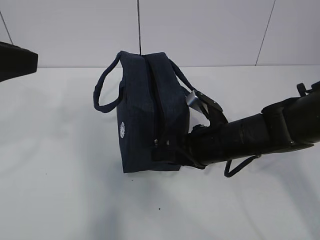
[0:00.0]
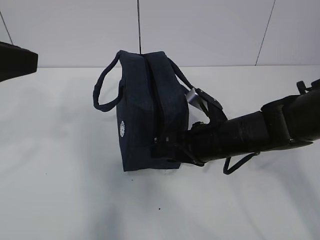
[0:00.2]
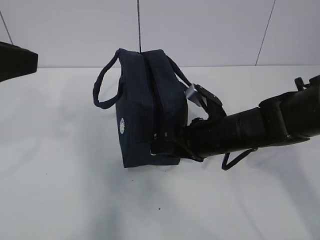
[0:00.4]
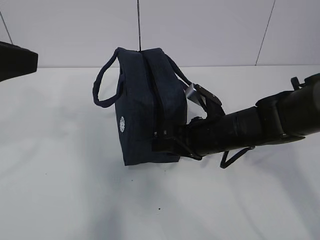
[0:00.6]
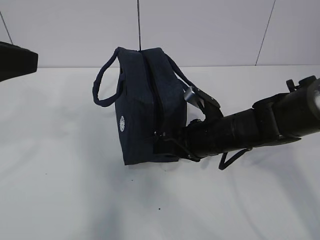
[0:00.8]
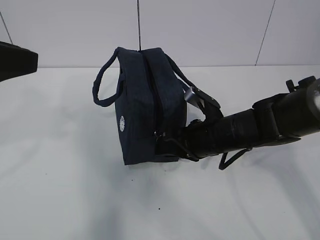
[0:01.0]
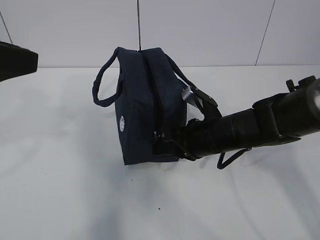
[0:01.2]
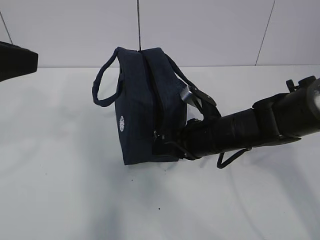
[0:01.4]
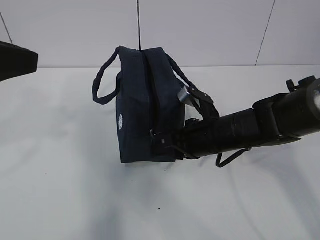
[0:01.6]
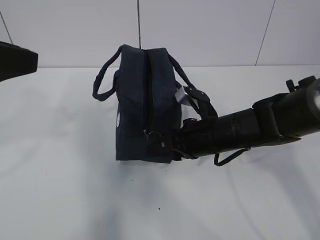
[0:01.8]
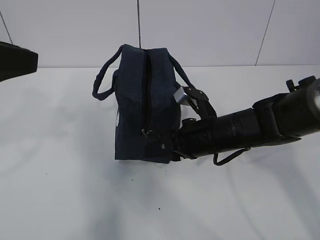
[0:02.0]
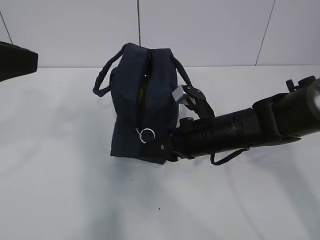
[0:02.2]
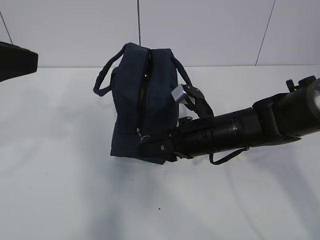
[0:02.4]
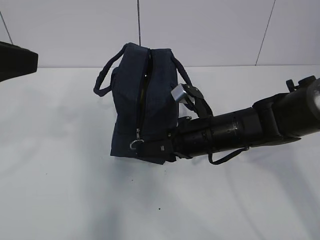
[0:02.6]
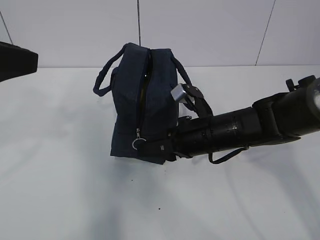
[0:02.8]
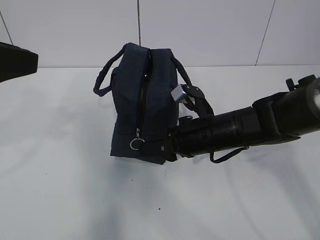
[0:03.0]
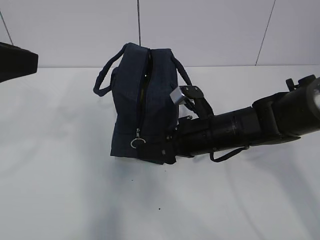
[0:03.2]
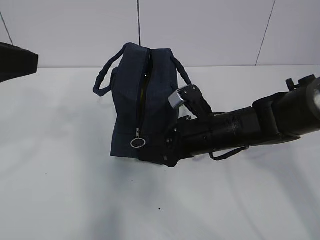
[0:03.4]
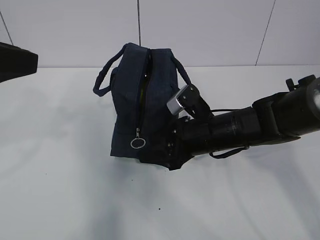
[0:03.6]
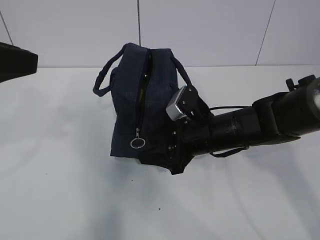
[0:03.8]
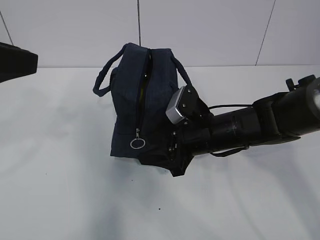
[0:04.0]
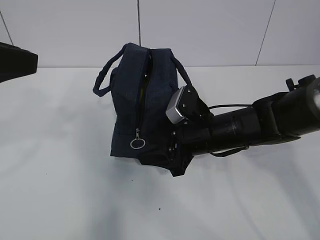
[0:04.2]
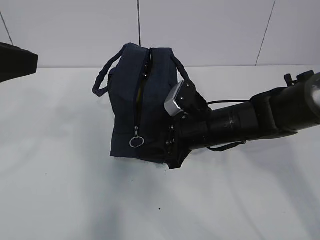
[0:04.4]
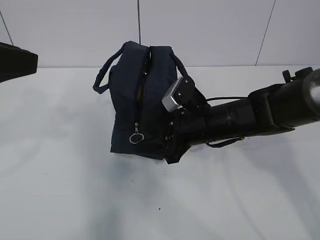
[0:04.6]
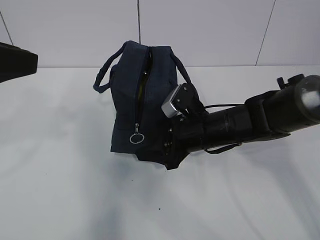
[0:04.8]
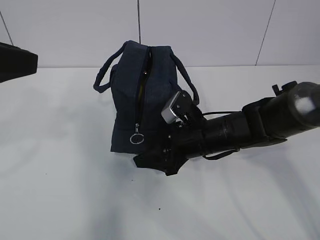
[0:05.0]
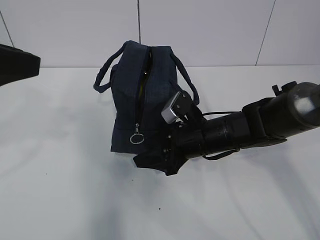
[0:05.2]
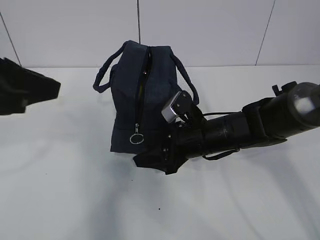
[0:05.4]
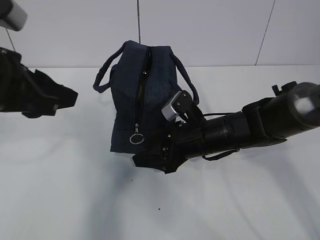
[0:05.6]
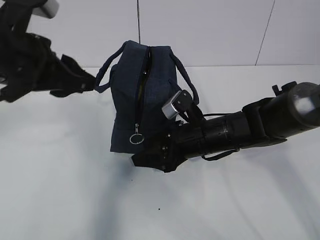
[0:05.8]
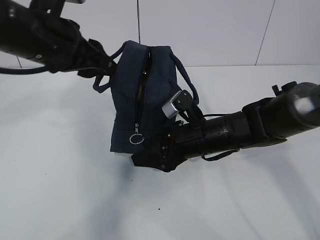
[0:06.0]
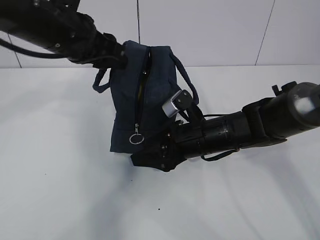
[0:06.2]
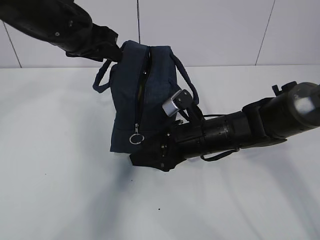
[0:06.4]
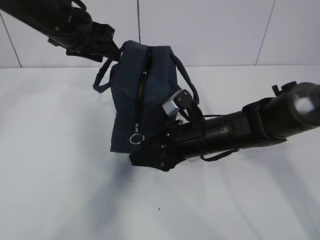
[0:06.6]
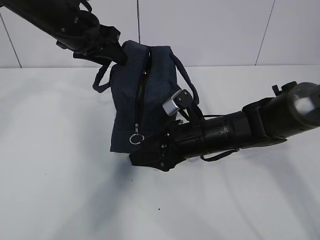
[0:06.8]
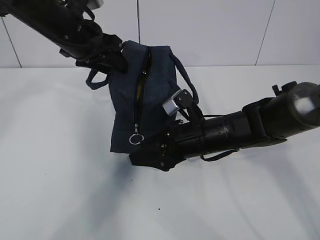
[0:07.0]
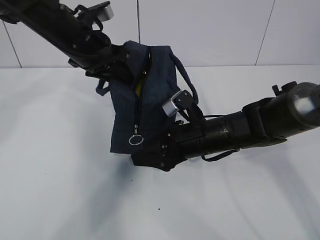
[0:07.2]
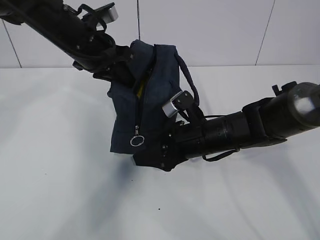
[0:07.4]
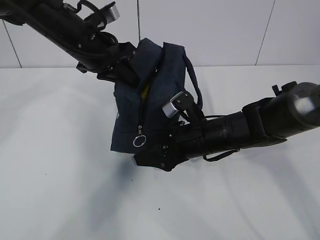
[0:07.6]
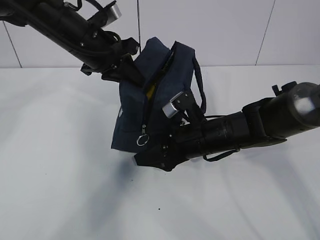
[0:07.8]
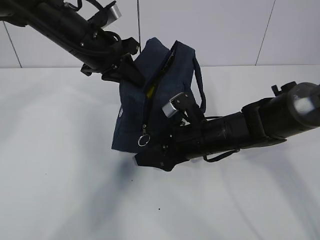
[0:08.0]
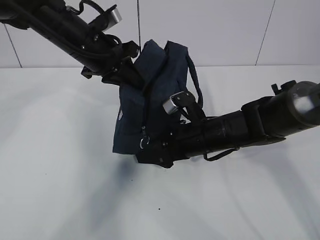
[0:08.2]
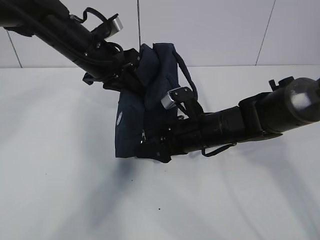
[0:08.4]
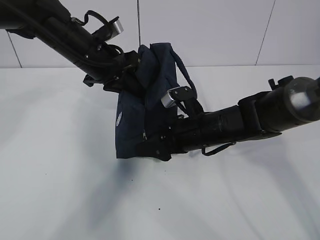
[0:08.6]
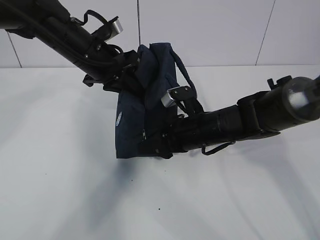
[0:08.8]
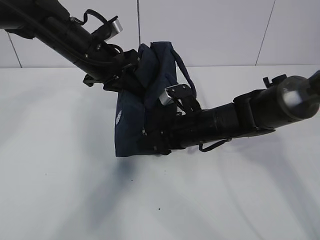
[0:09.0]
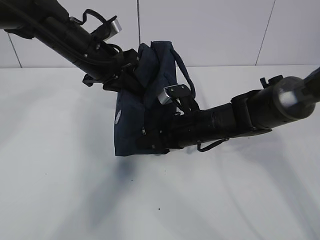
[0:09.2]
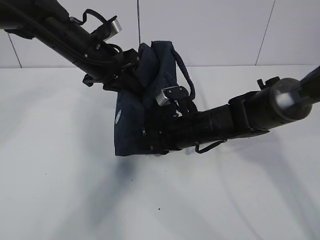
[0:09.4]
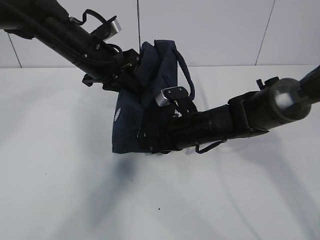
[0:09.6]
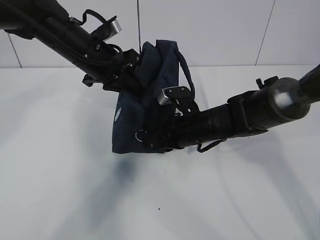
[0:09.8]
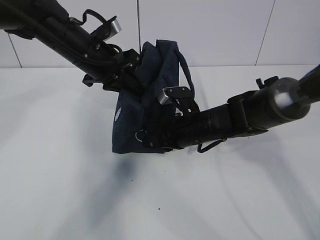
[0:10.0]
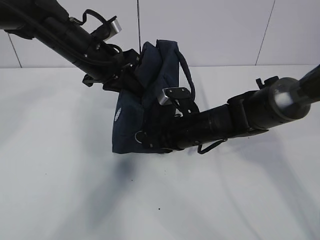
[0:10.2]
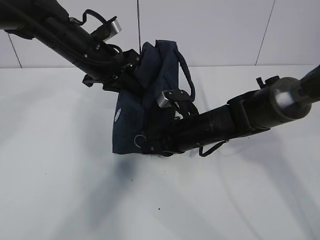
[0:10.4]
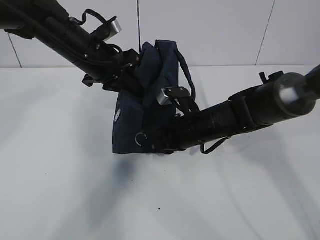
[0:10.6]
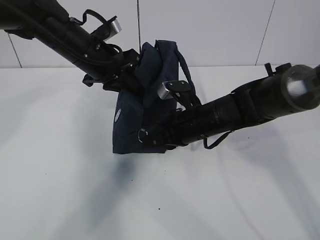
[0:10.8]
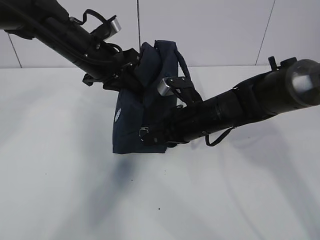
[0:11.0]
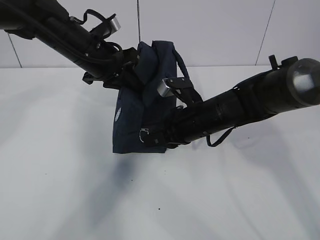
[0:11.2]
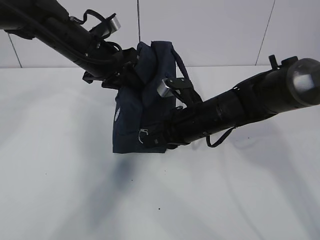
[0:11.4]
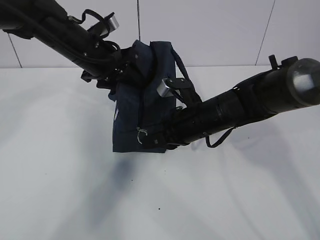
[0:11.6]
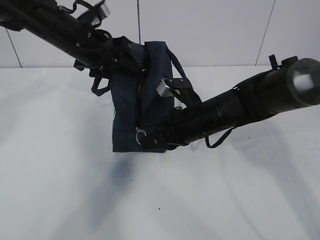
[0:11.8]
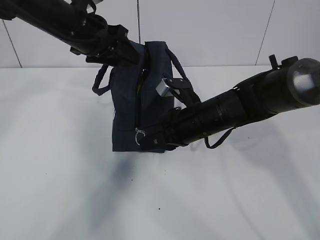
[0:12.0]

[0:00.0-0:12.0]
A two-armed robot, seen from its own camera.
0:00.0 to 0:01.6: The right gripper closes.
0:01.6 to 0:03.0: The grippers stay close to where they were, moving slightly.
0:04.4 to 0:06.0: The left gripper travels forward, to the right and downward by about 15 cm.
0:06.0 to 0:07.6: The left gripper travels forward by roughly 10 cm, and closes up.
0:07.6 to 0:09.0: The grippers make only small movements.
0:09.0 to 0:10.4: The right gripper closes up.
0:10.4 to 0:12.0: The left gripper opens.

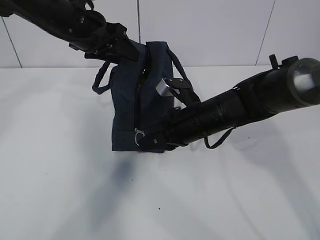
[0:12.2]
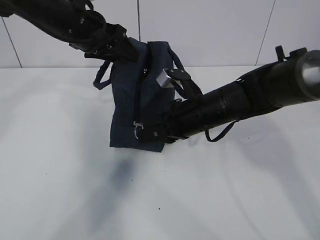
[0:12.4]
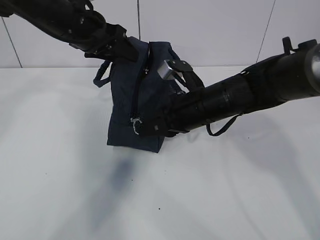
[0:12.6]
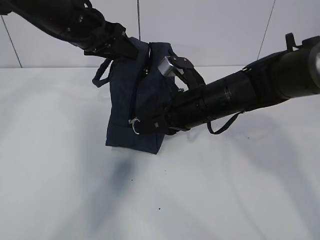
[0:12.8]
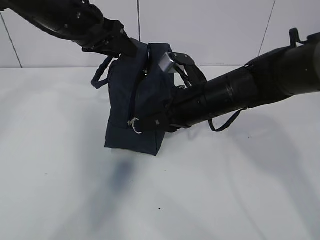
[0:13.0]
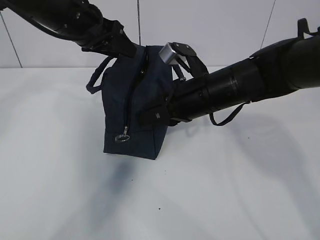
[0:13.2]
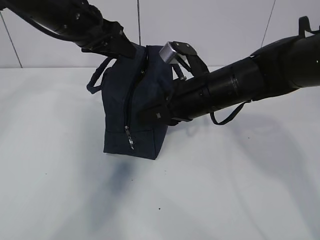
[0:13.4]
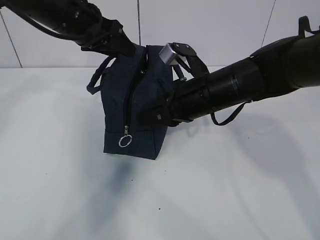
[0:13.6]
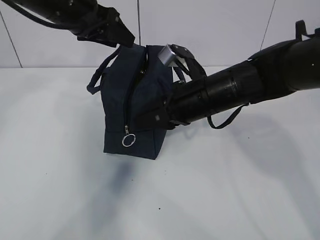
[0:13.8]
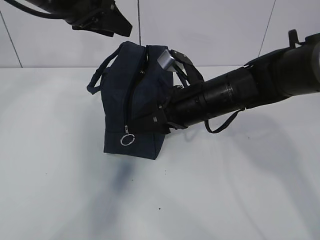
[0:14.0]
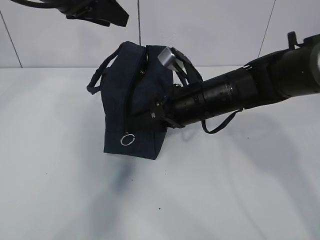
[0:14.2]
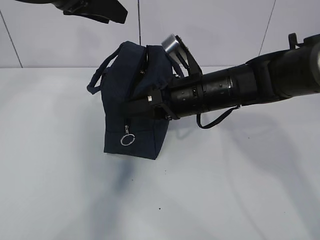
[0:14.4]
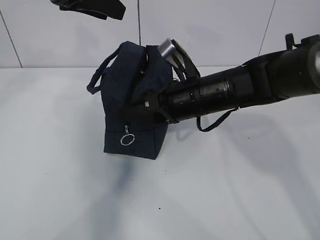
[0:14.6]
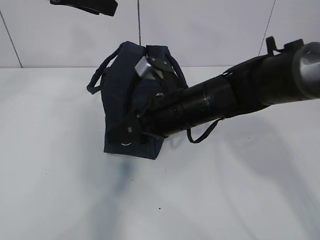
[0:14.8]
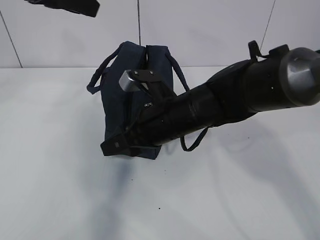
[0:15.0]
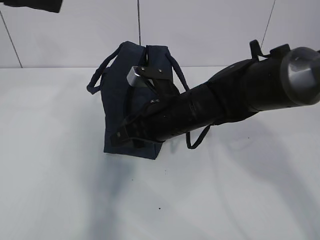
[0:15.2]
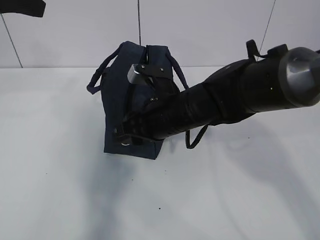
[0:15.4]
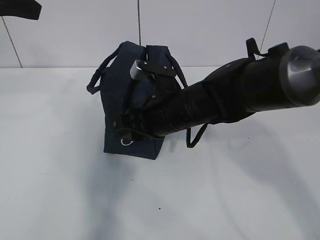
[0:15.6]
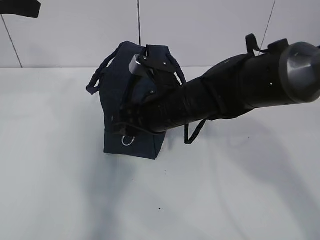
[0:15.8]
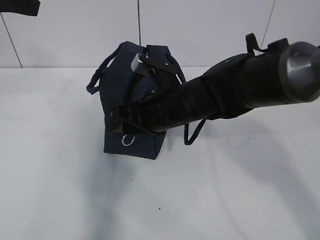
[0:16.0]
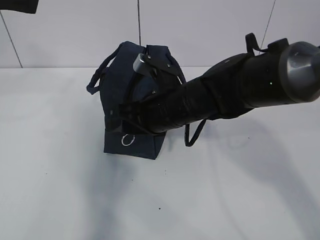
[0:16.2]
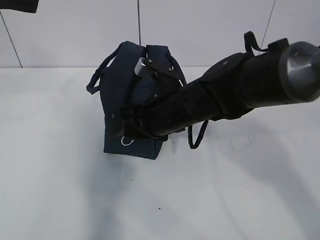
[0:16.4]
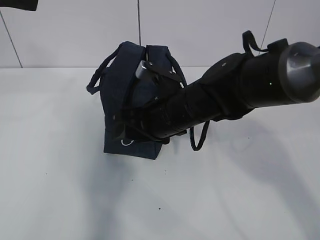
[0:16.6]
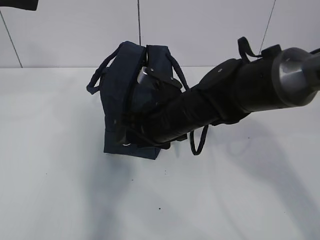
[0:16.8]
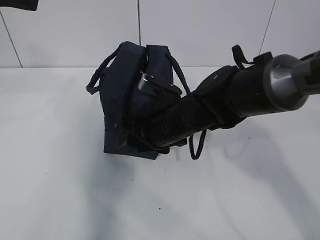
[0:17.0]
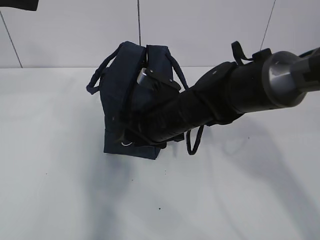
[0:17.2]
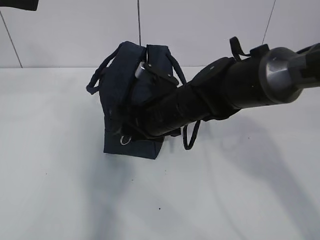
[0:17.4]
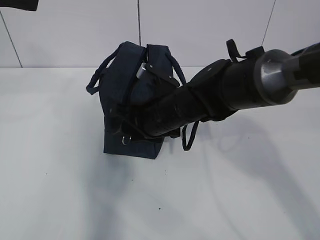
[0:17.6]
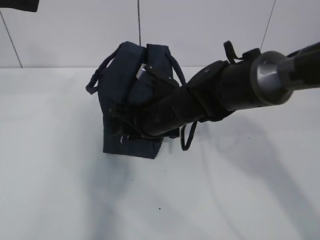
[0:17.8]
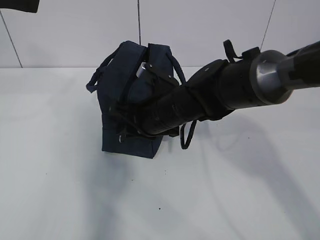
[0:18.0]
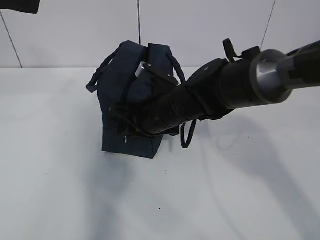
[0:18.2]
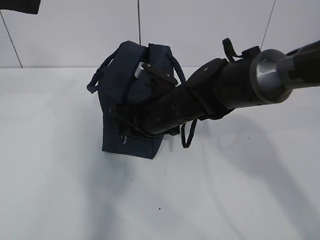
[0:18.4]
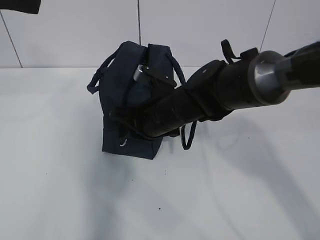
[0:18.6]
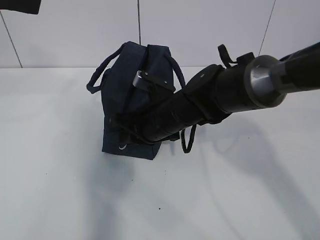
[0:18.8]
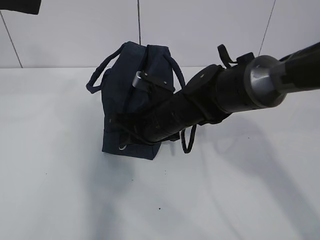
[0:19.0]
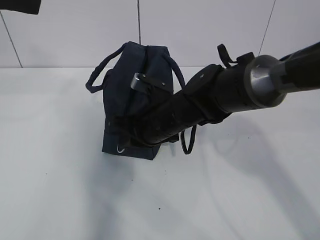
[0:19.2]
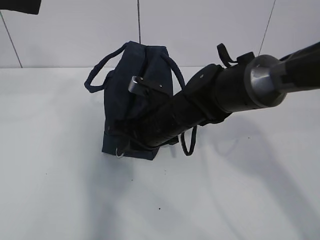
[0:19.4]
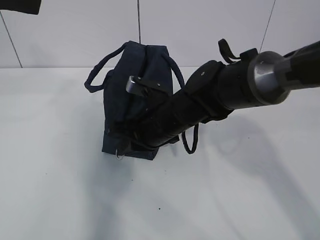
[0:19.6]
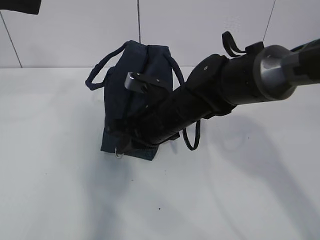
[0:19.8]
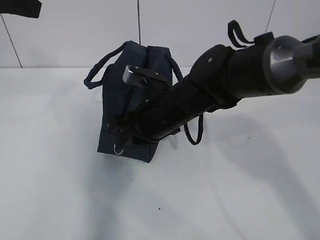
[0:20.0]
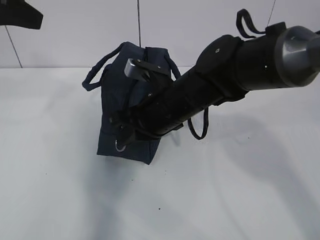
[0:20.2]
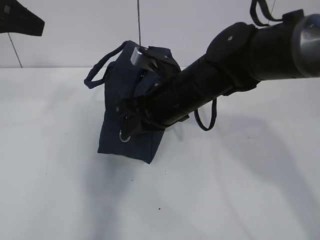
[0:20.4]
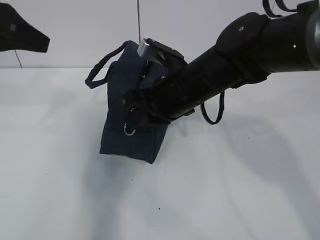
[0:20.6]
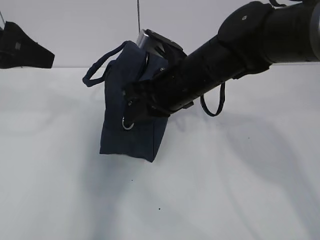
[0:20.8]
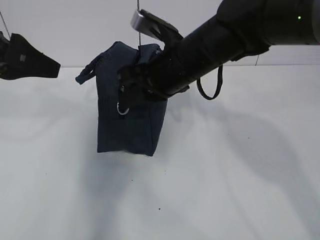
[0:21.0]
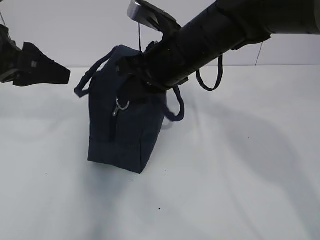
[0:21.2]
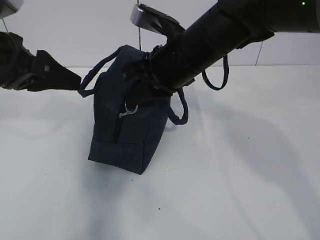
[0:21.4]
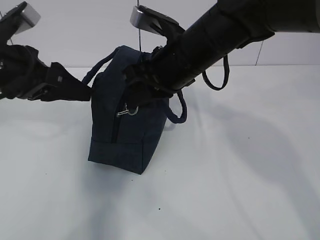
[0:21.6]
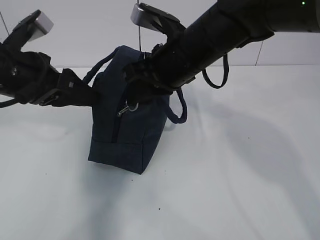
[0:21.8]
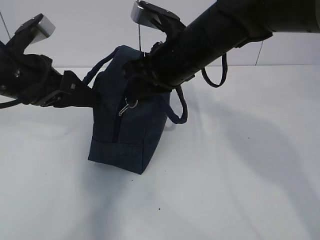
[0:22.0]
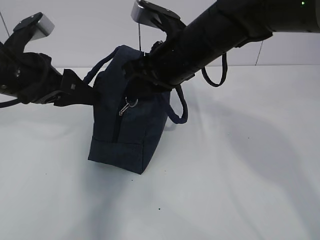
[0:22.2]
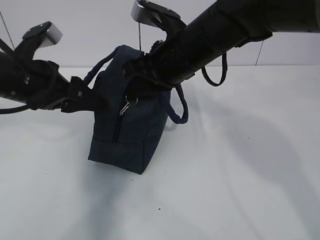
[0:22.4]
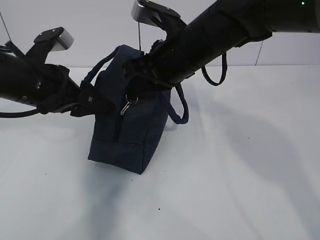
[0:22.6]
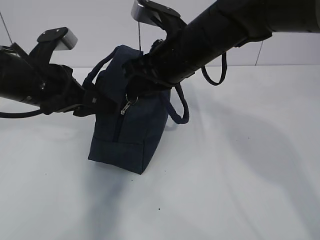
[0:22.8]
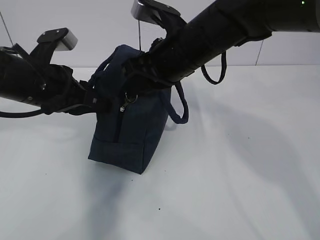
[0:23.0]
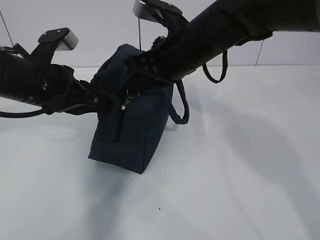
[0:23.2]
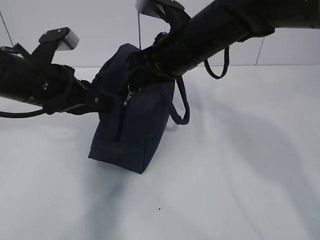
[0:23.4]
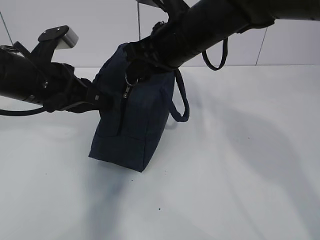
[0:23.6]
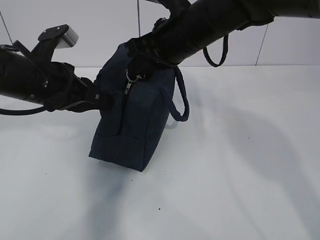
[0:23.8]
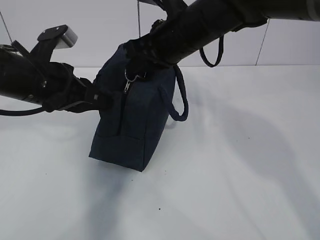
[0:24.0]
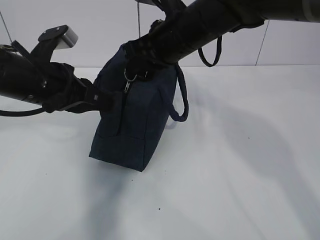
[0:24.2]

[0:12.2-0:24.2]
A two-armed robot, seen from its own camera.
Step, 0:12.2 to 0:16.6: Grab the lunch bag with your left hand.
Step, 0:16.8 to 0:21.4: Pull the zipper with your right hand.
Step, 0:21.6 to 0:23.2: Grab the lunch bag with your left hand.
0:12.2 to 0:13.8: The right gripper goes about 5 cm upward.
0:13.8 to 0:15.2: The left gripper is displaced backward, upward and to the left by some 15 cm. Meanwhile the right gripper moves to the left, about 5 cm, and opens.
0:16.6 to 0:18.2: The right gripper closes.
0:18.2 to 0:19.8: There are only small adjustments of the grippers.
0:19.8 to 0:21.2: The left gripper goes roughly 10 cm downward, while the right gripper moves upward, some 10 cm.
0:21.2 to 0:22.6: The left gripper shifts approximately 5 cm downward.
0:22.6 to 0:24.2: The left gripper closes.
